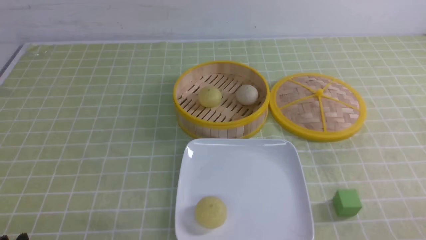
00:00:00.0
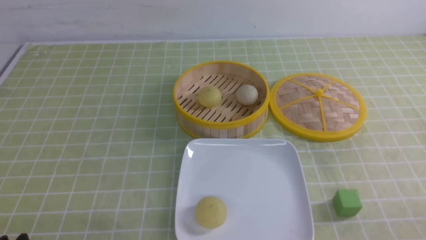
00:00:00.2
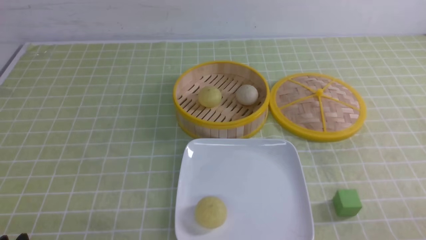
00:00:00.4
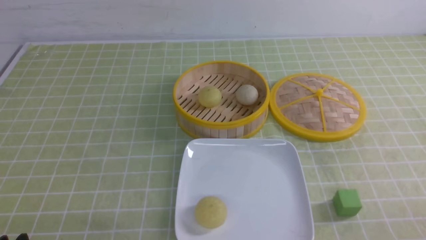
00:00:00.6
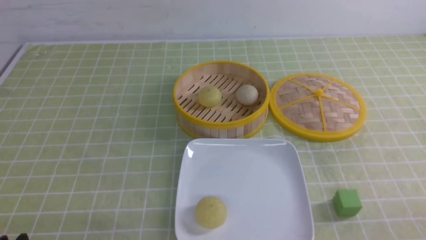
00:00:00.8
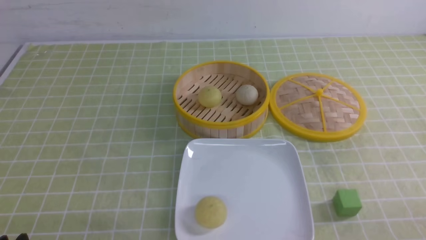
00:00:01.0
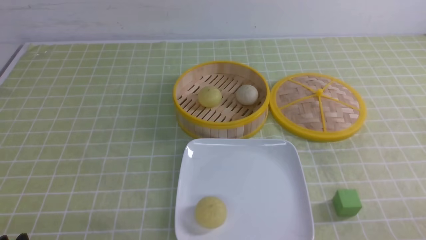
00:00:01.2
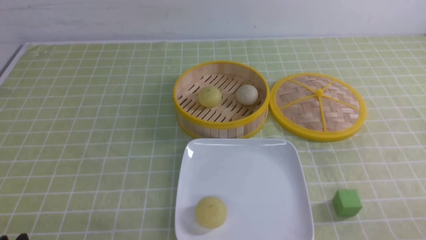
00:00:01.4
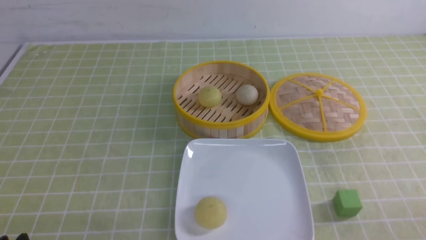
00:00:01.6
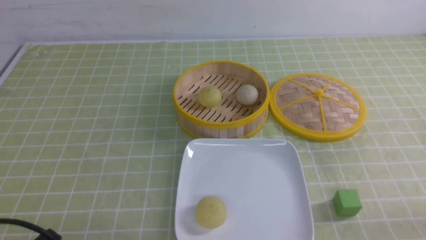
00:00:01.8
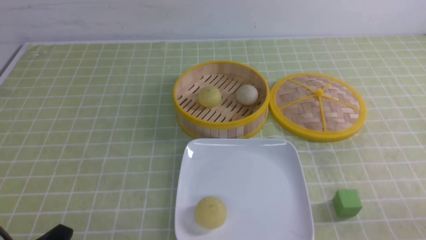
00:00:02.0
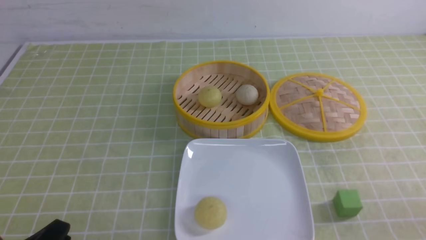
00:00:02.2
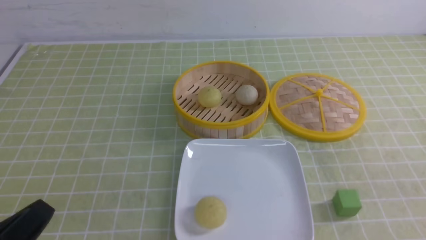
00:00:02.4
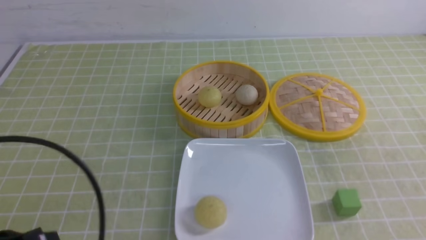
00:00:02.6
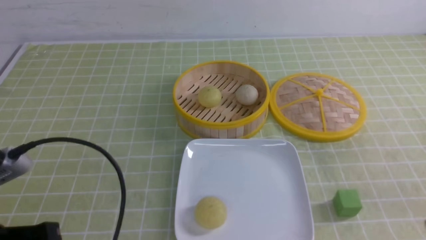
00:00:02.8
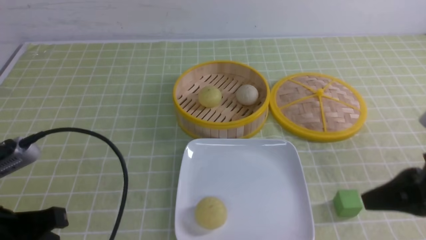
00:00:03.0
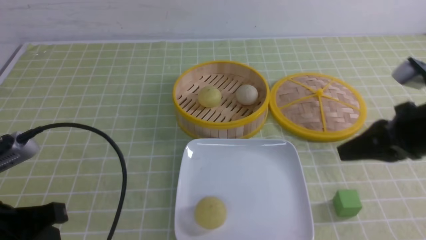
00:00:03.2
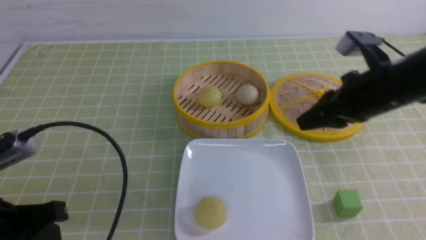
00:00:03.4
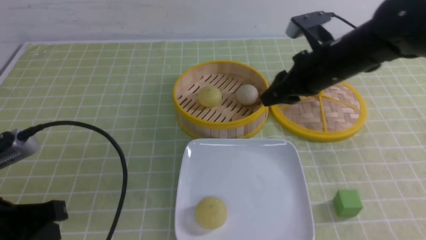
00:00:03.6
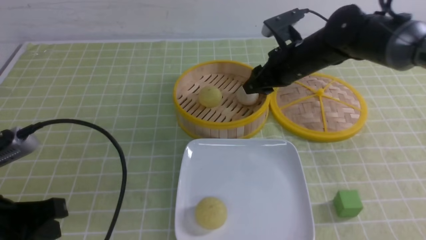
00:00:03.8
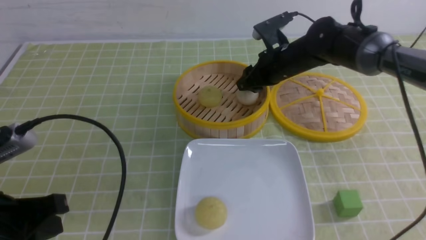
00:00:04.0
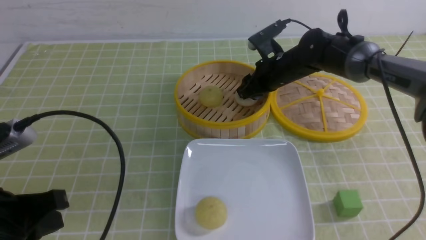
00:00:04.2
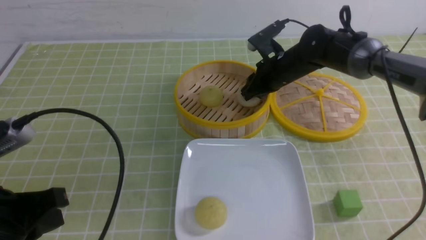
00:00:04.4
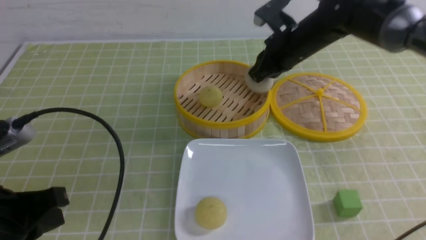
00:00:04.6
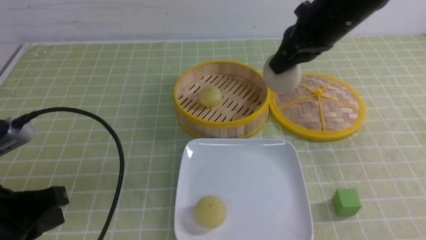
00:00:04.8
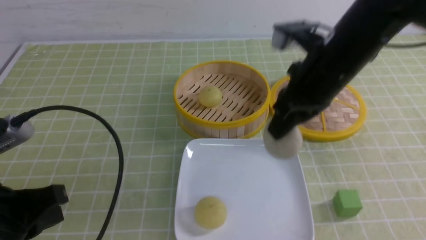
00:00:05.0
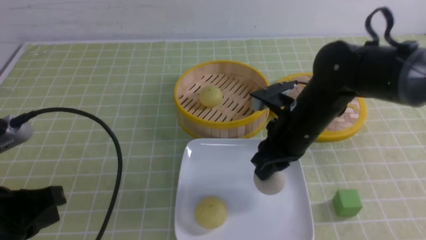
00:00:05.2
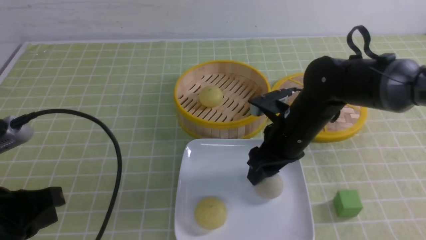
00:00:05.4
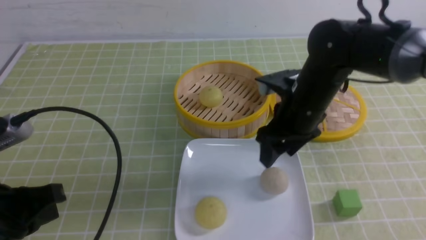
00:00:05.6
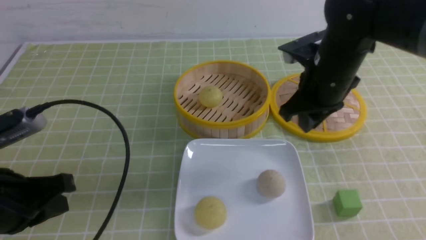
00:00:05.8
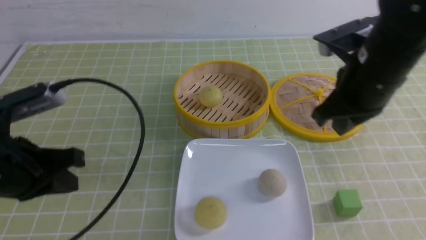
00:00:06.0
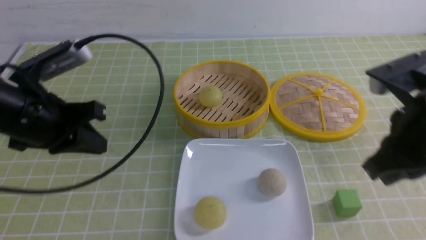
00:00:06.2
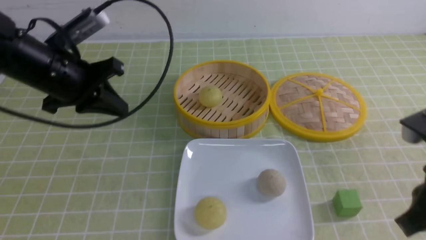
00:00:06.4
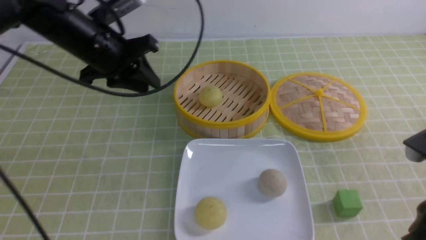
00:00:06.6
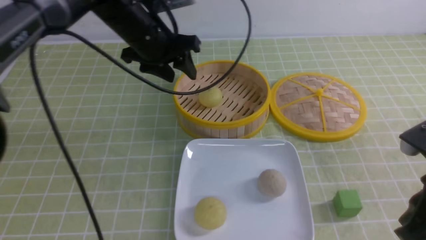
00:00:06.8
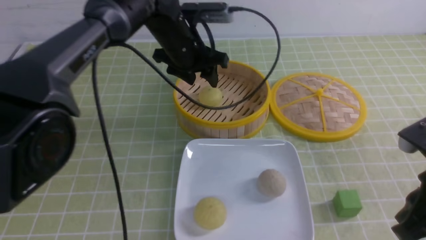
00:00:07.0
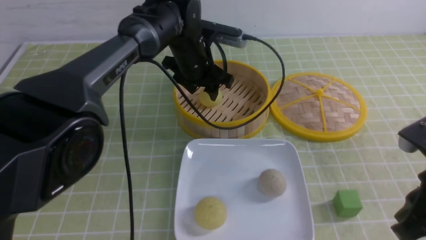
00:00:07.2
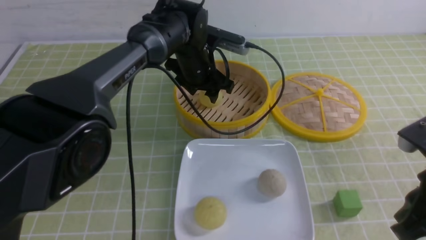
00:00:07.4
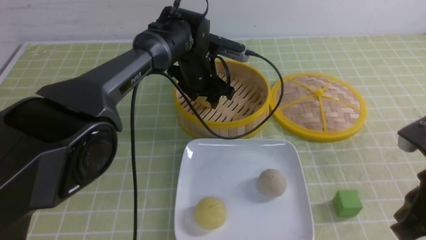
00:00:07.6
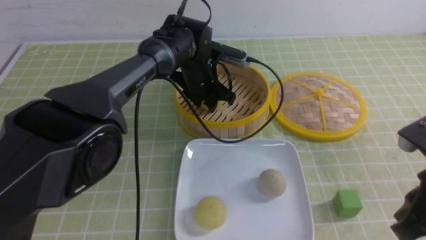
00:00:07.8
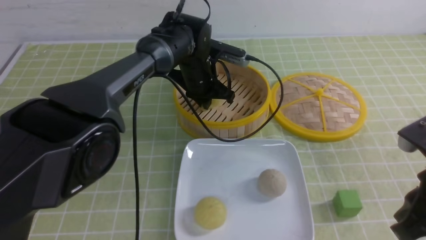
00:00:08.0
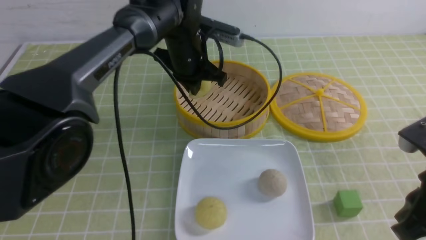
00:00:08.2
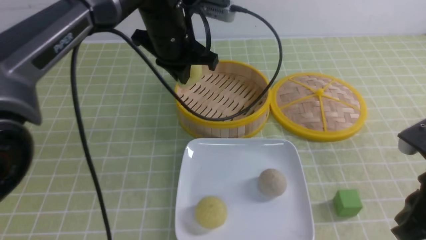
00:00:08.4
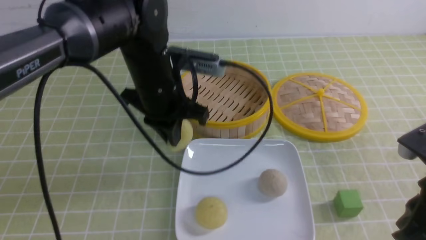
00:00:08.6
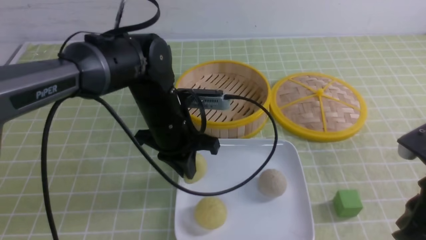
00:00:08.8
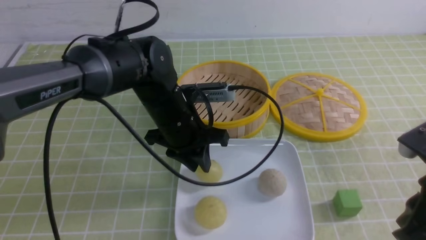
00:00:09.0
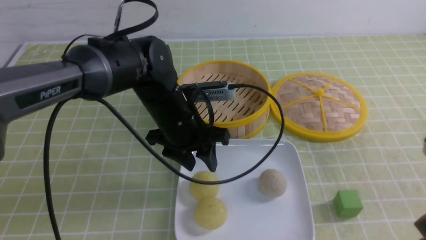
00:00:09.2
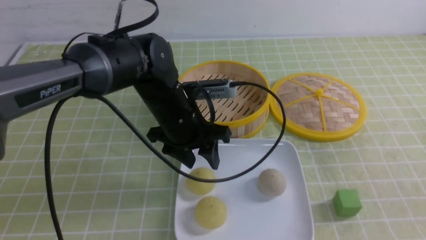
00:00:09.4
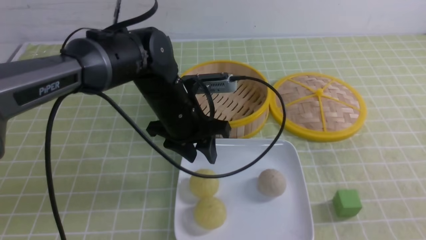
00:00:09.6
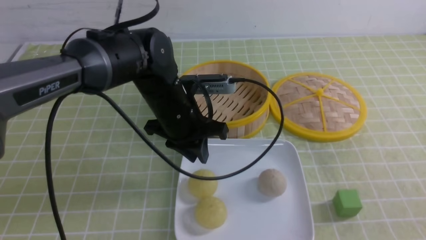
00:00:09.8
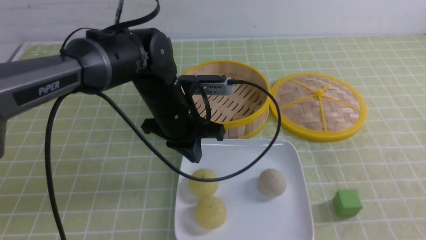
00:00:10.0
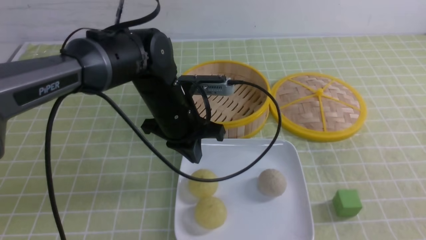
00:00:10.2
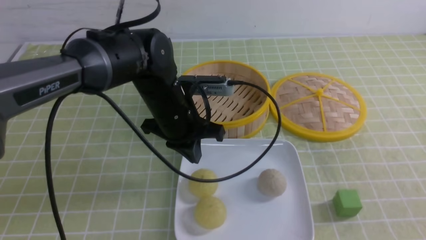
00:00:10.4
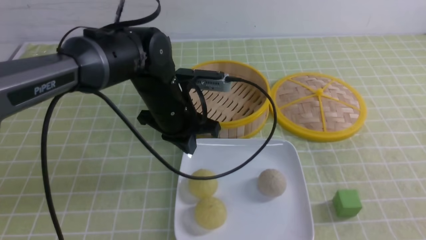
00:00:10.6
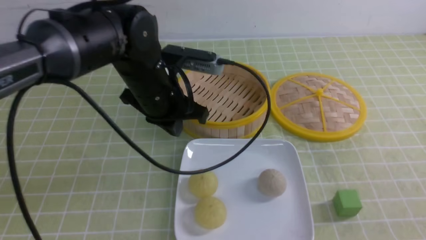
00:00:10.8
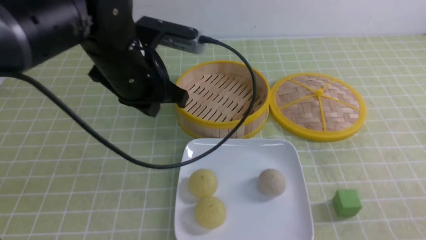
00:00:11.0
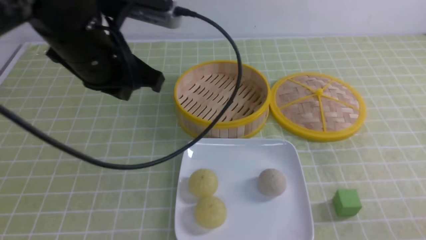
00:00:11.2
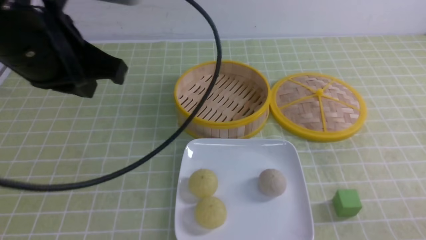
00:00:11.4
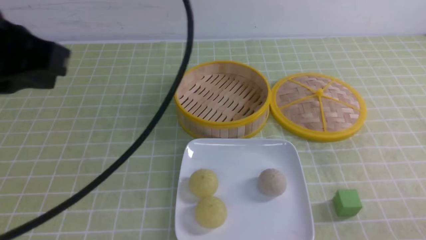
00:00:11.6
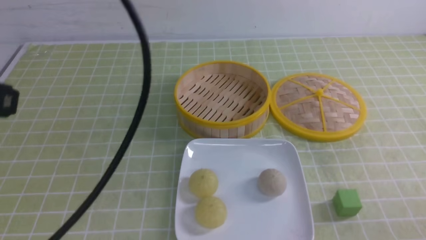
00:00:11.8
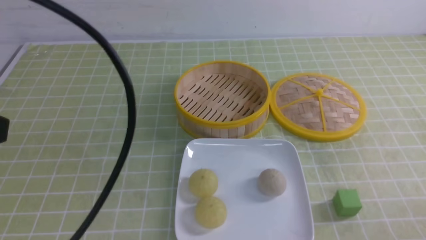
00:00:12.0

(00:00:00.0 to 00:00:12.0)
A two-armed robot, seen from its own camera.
Step, 00:00:00.0 - 00:00:04.4: use the right arm to grab the steamed stuffed bun that is closest to it.
Step, 00:00:04.6 - 00:00:05.4: use the right arm to put the steamed stuffed bun into the plate.
Step, 00:00:05.6 - 00:00:08.0: use the left arm to grab the steamed stuffed bun that is closest to it.
Step, 00:00:08.2 - 00:00:09.2: use the left arm to put the steamed stuffed bun into the plate.
00:00:01.6 - 00:00:03.0: The right gripper is displaced forward, upward and to the left by about 20 cm, and closes its fingers; the left gripper moves upward and forward, roughly 10 cm, and closes up.
00:00:03.0 - 00:00:04.4: The right gripper heads forward and to the left, covering approximately 30 cm, and opens, then closes once more.
00:00:04.4 - 00:00:06.0: The left gripper is displaced forward by some 5 cm; the right gripper moves backward and upward, about 20 cm, and closes.
00:00:06.0 - 00:00:07.6: The right gripper heads backward and to the right, covering about 15 cm, while the left gripper moves forward and to the right, roughly 35 cm, and opens up.
00:00:07.6 - 00:00:09.0: The left gripper shifts approximately 15 cm backward, and closes and opens again.
00:00:09.0 - 00:00:10.4: The right gripper travels backward by about 10 cm, while the left gripper closes its fingers.
00:00:10.4 - 00:00:12.0: The right gripper moves downward, roughly 10 cm. Meanwhile the left gripper is displaced backward, upward and to the left by about 35 cm.

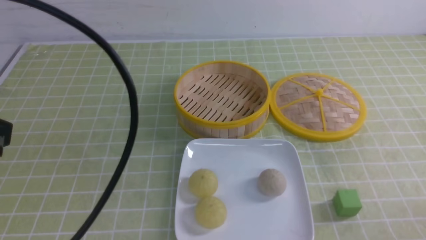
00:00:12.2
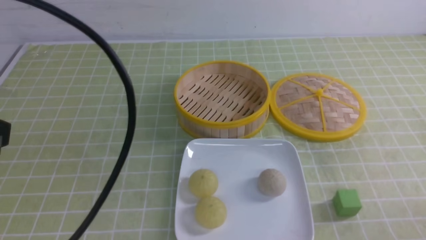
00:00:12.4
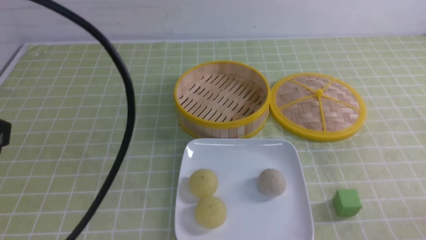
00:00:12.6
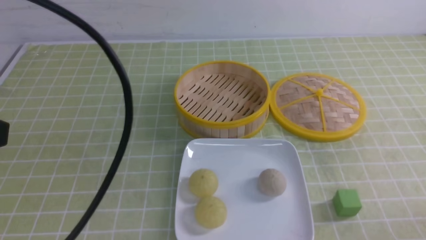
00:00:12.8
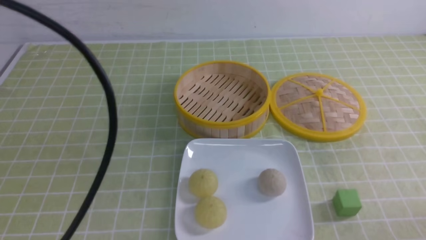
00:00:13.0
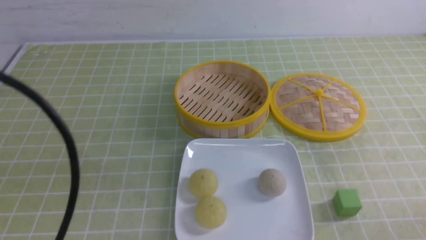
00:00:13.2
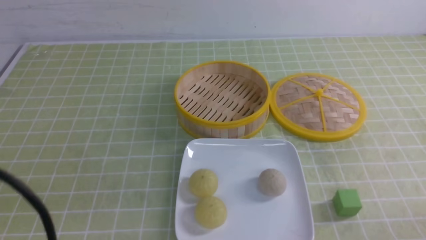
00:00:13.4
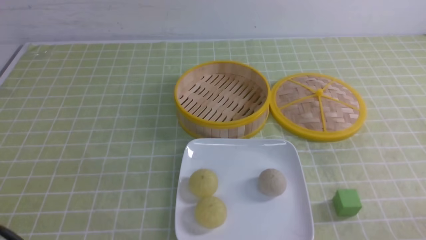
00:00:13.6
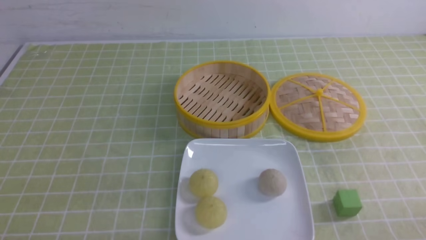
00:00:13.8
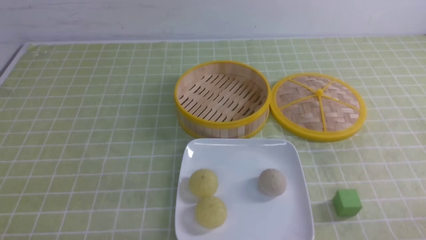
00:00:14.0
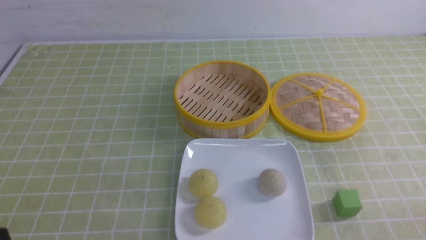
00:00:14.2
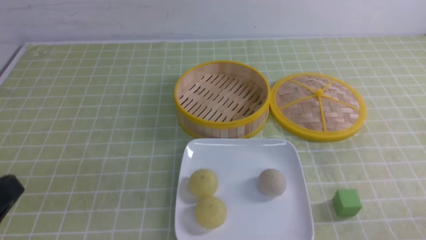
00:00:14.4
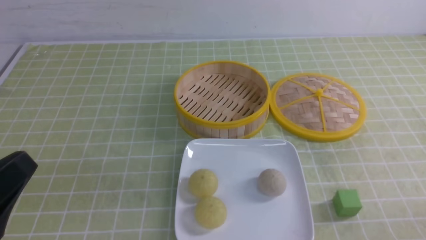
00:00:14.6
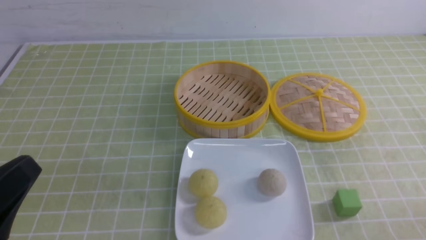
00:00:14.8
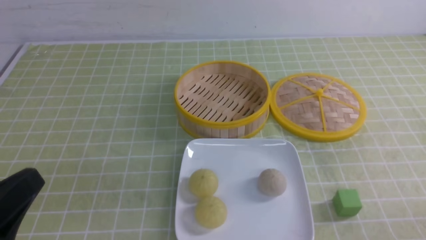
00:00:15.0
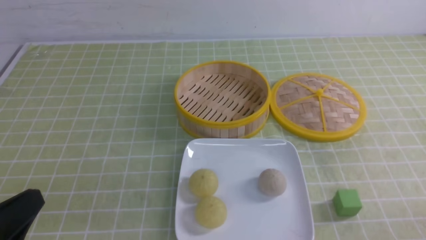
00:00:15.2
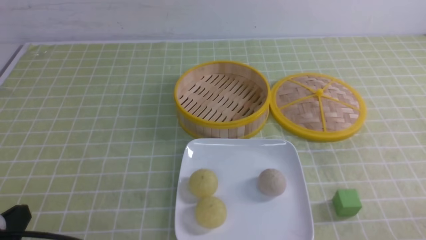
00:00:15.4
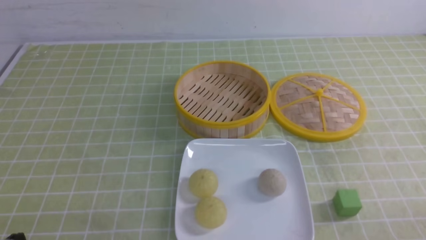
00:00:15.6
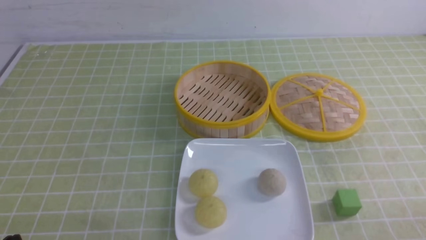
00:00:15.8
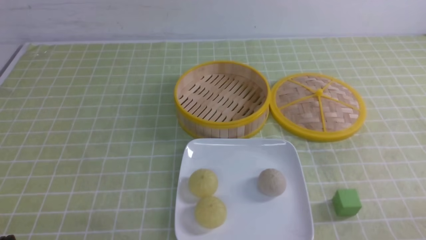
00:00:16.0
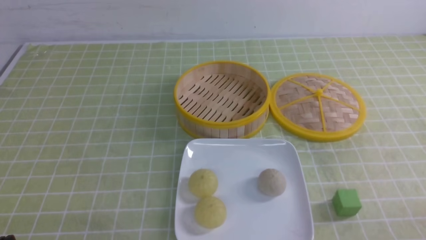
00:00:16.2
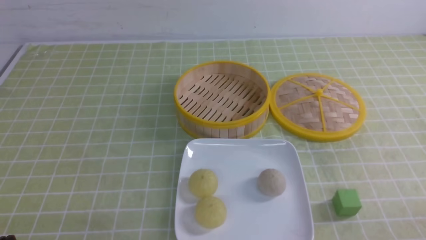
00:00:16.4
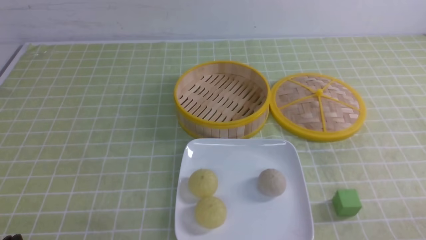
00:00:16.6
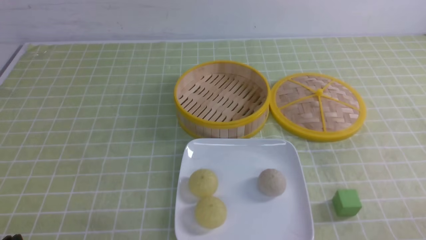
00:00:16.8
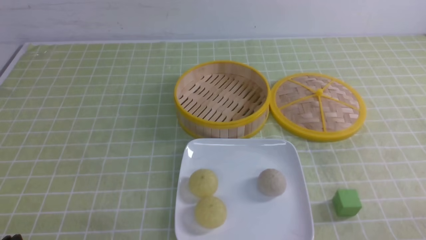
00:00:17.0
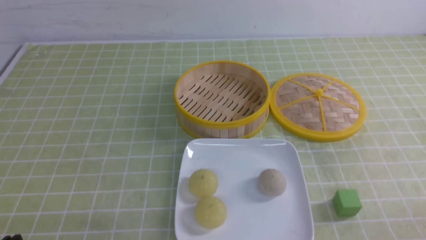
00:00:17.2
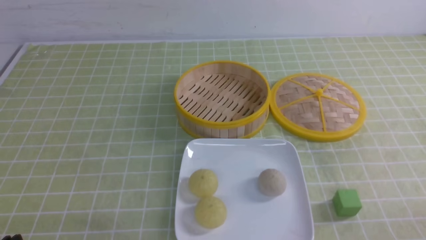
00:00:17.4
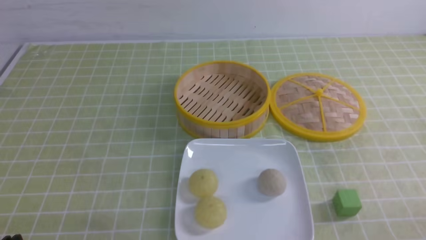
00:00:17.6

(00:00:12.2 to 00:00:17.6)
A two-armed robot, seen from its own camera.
00:00:12.2 - 00:00:13.6: The left gripper travels downward and backward by approximately 15 cm.
00:00:13.6 - 00:00:15.0: The left gripper ends up about 5 cm from where it was.
00:00:15.0 - 00:00:16.2: The left gripper is displaced downward by approximately 10 cm.
00:00:16.2 - 00:00:17.6: Neither gripper changes place.
